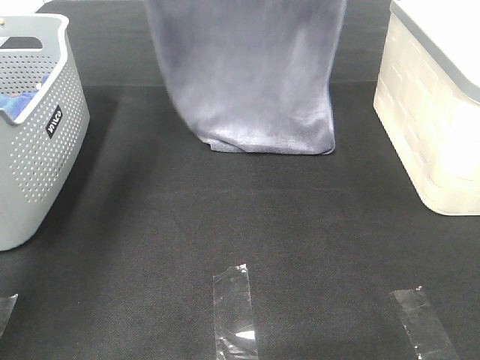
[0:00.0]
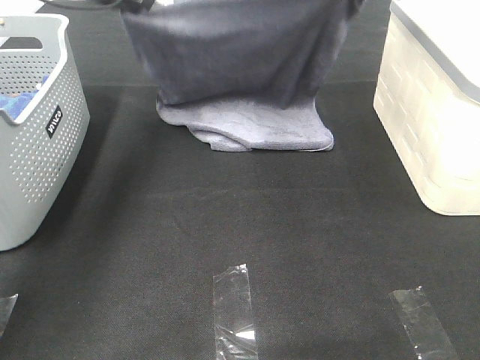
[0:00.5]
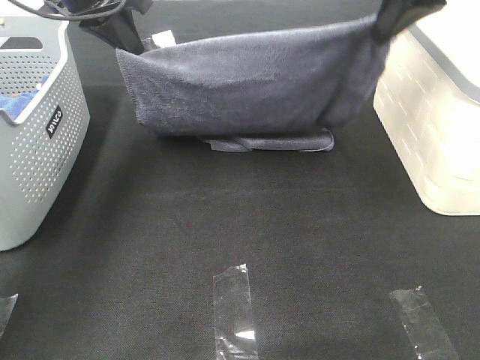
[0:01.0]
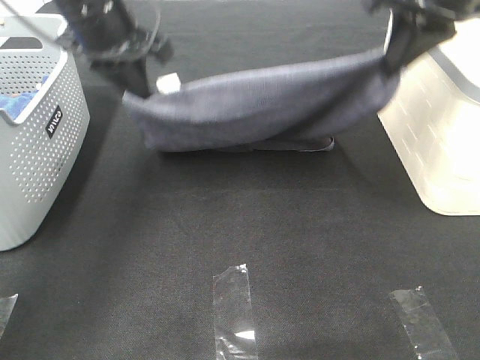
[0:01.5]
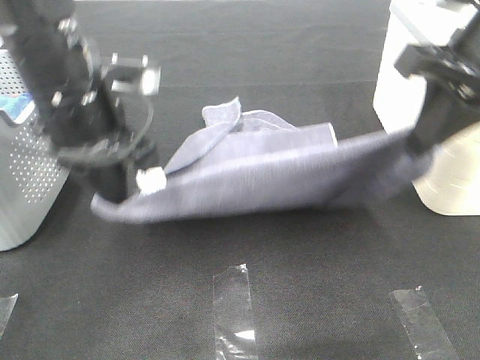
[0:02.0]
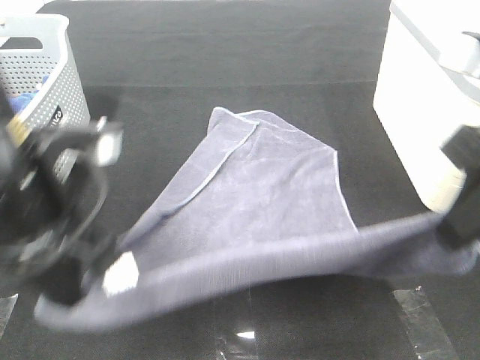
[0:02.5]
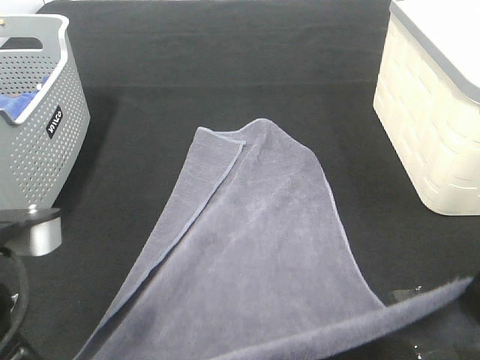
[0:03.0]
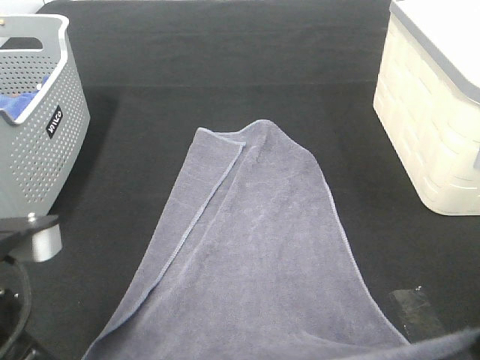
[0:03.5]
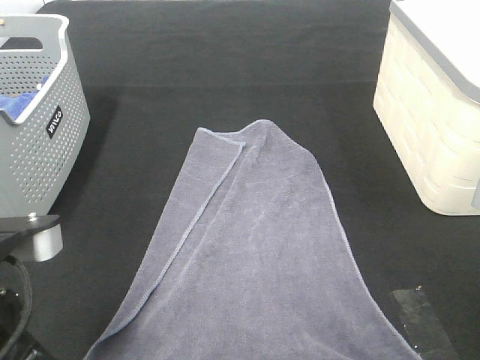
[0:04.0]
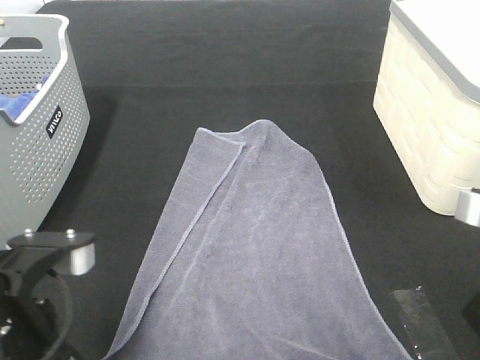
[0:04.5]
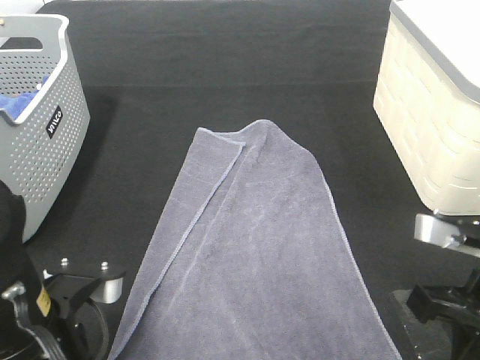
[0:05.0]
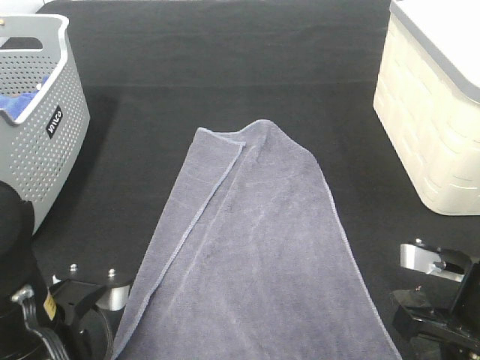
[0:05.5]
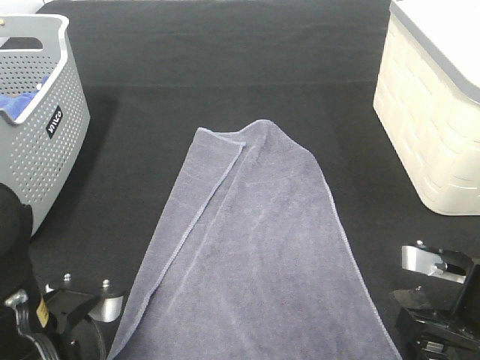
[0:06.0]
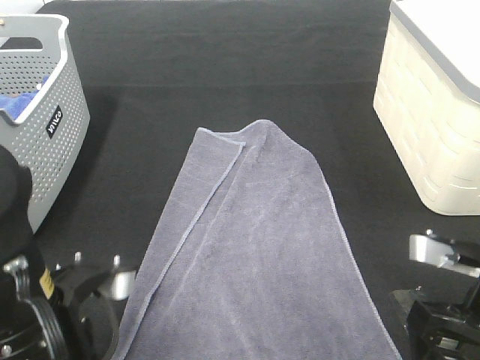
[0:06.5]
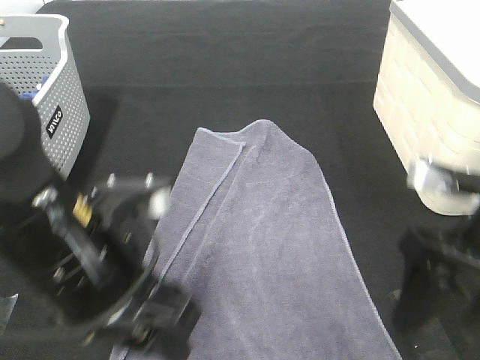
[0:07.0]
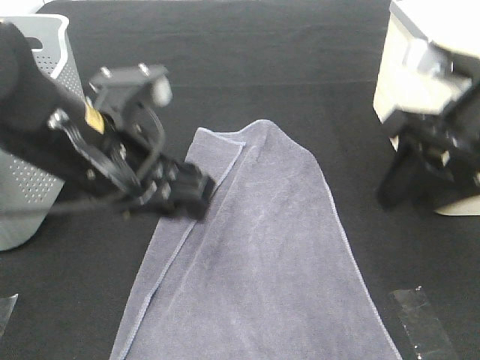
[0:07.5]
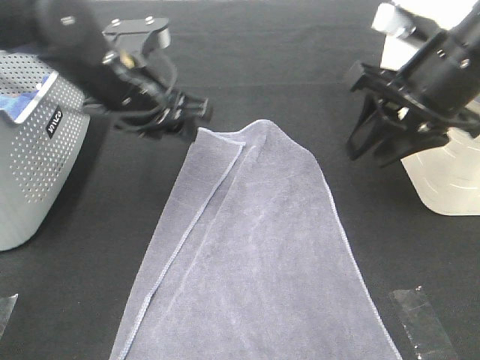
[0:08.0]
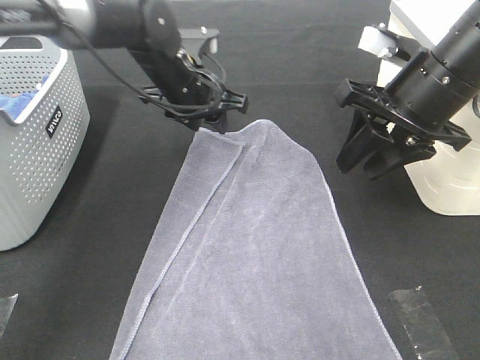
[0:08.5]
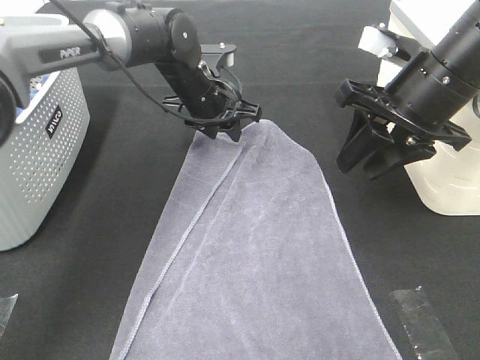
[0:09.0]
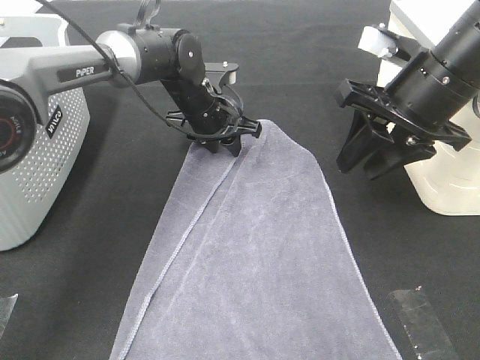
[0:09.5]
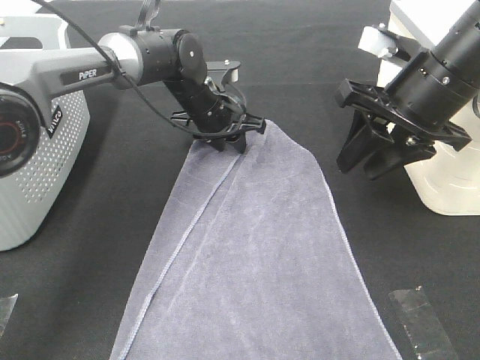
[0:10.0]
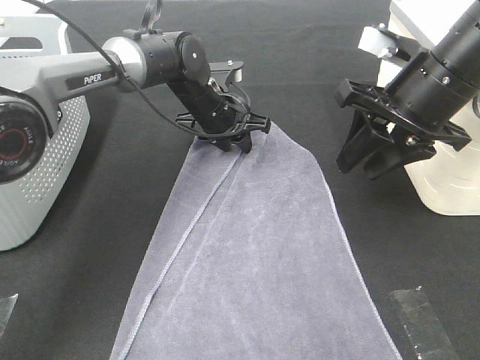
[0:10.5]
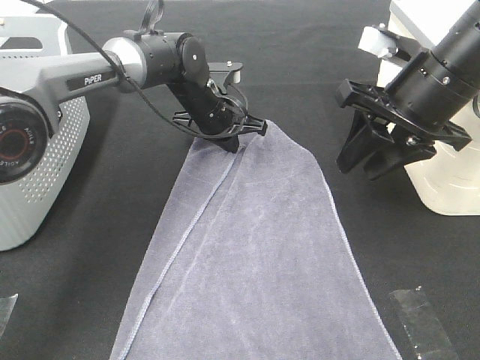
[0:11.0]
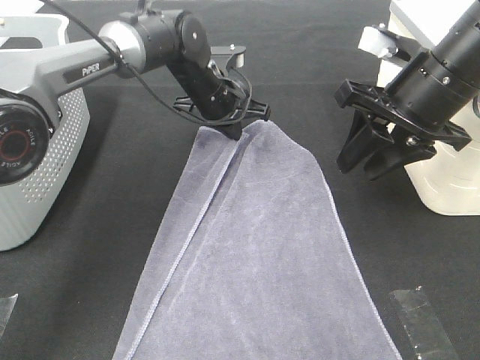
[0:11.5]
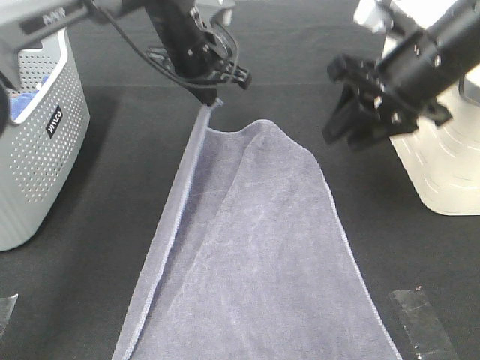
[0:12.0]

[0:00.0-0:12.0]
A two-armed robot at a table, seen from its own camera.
Task of the whole recording: Remove the towel and place it.
0:00.0 to 0:02.0: The right gripper goes roughly 20 cm backward, while the left gripper is displaced backward and downward by about 25 cm.
0:02.0 to 0:04.0: The right gripper goes roughly 15 cm backward and downward; the left gripper moves backward, some 20 cm.
0:04.0 to 0:06.0: The two grippers go roughly 10 cm downward. The right gripper opens; the left gripper opens.
0:06.0 to 0:08.0: The left gripper shifts some 25 cm forward. The right gripper heads forward and upward, covering some 20 cm, and closes.
0:08.0 to 0:10.0: The left gripper travels forward, downward and to the right by about 15 cm.
0:10.0 to 0:12.0: The left gripper travels upward by approximately 10 cm, and closes up.

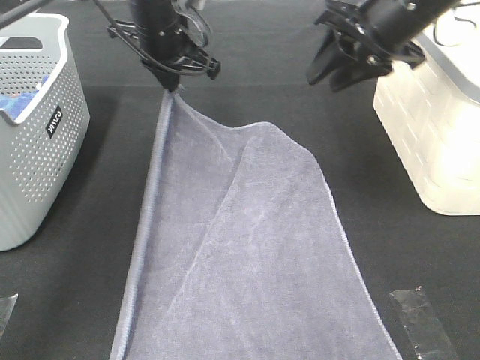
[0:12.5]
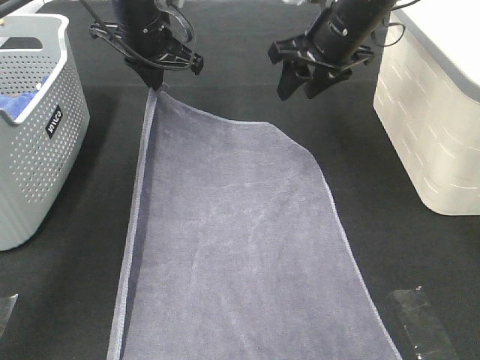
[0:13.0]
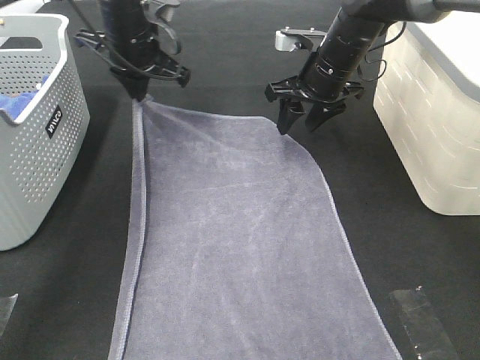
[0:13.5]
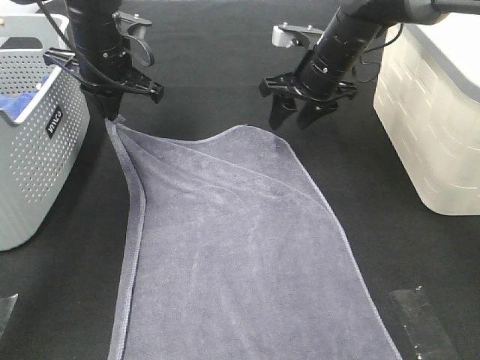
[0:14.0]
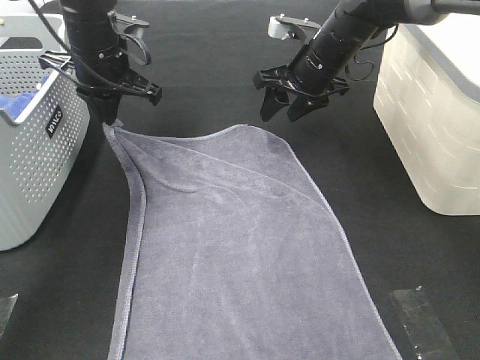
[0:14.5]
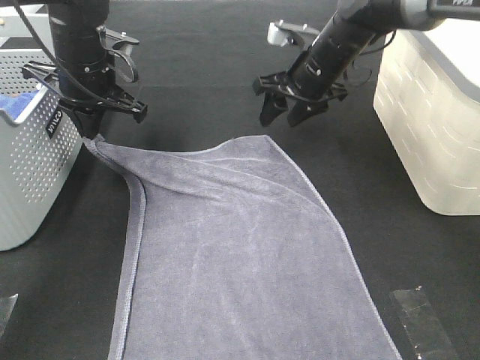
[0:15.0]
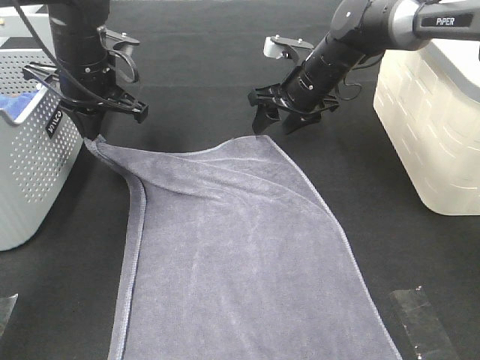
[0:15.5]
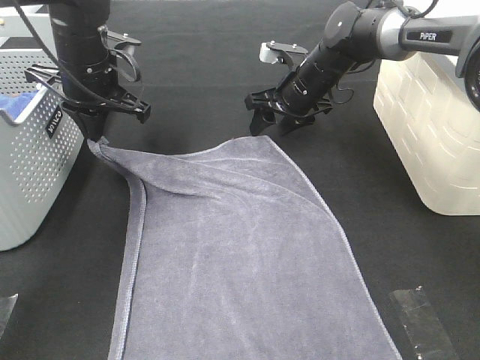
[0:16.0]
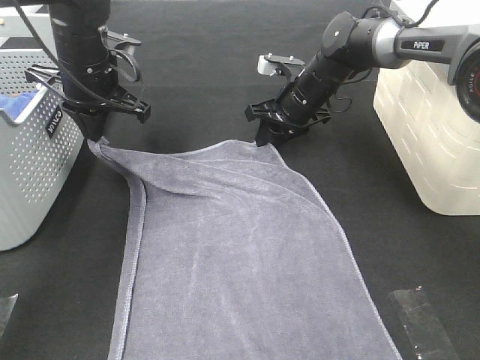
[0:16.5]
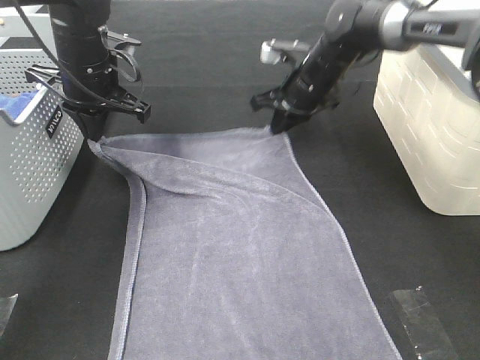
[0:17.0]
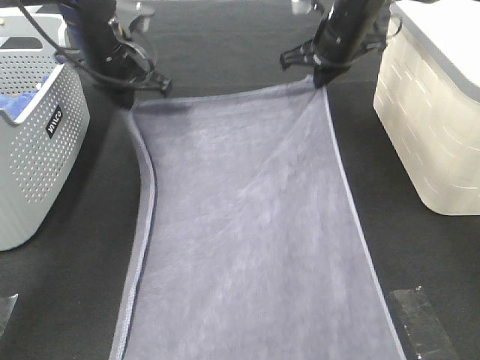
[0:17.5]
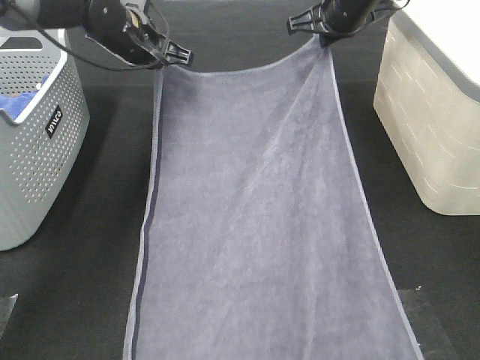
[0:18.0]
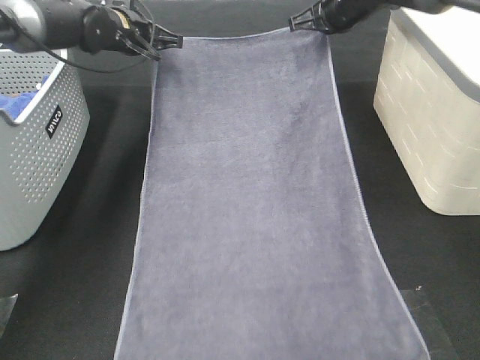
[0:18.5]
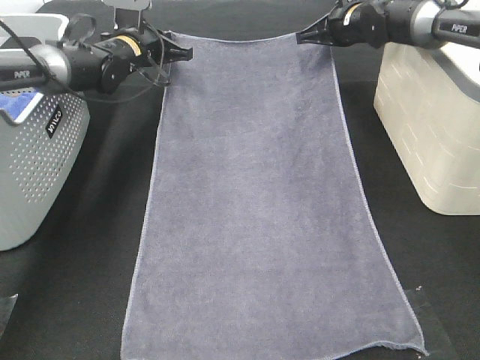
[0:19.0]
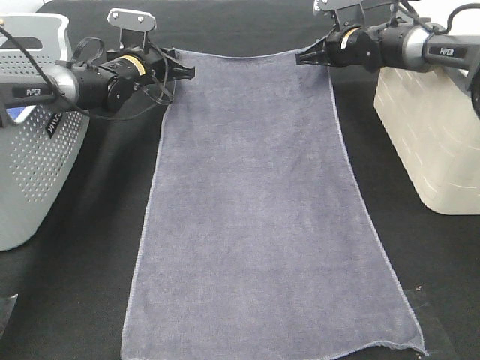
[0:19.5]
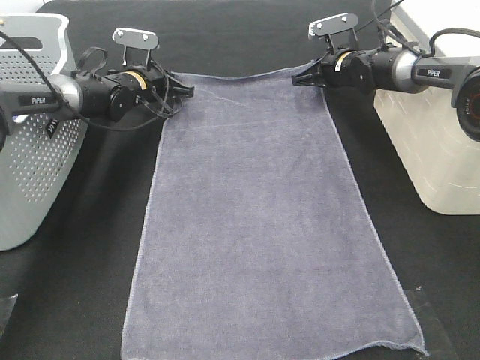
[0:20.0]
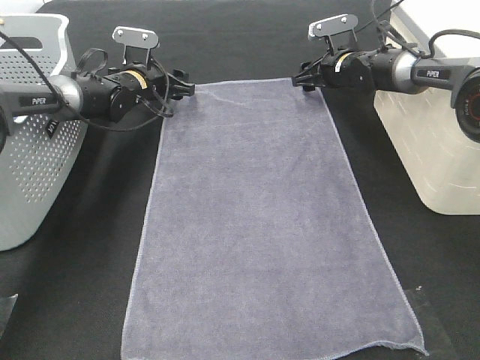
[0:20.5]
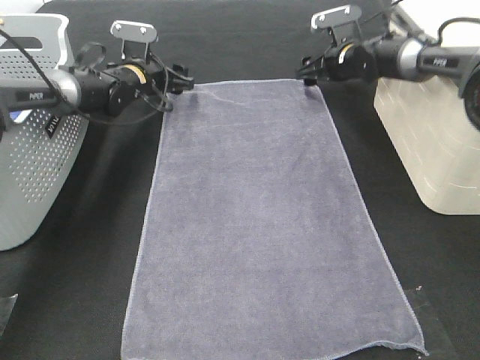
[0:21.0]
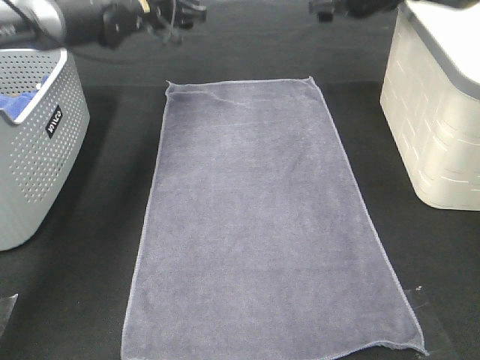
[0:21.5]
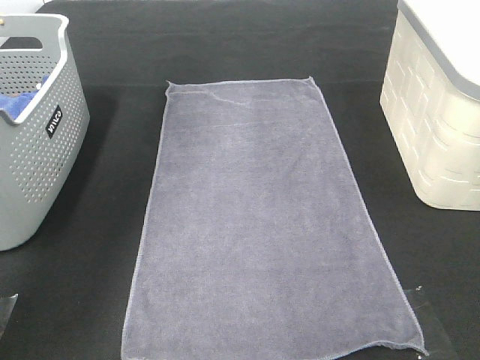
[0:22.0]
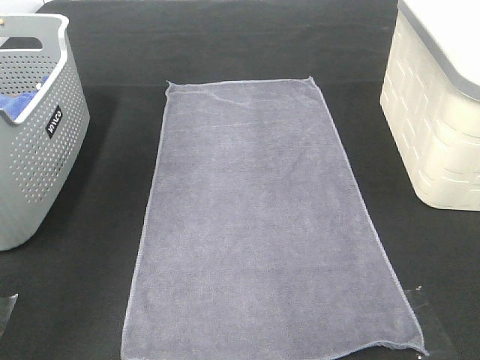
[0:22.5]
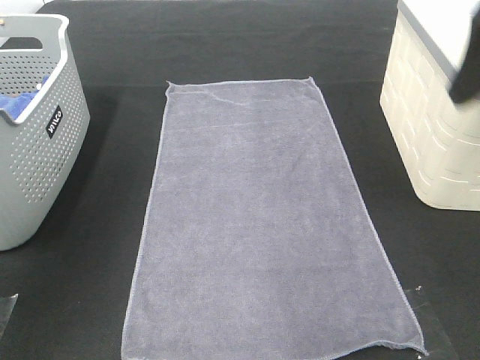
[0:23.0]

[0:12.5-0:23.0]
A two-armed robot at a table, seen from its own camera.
Task of the whole recording: Remove the towel and place it.
0:12.5 to 0:14.5: The left gripper goes approximately 5 cm to the left. The right gripper travels downward, forward and to the left by some 15 cm.
0:14.5 to 0:16.5: The right gripper is displaced downward by about 5 cm.
0:16.5 to 0:19.0: The left gripper travels forward and downward by some 15 cm; the right gripper moves forward, to the right and upward, roughly 15 cm, and closes its fingers.
0:19.0 to 0:21.0: The left gripper opens up. The right gripper goes some 5 cm downward, and opens up.
0:21.0 to 0:23.0: Both grippers travel together backward and upward, about 40 cm.

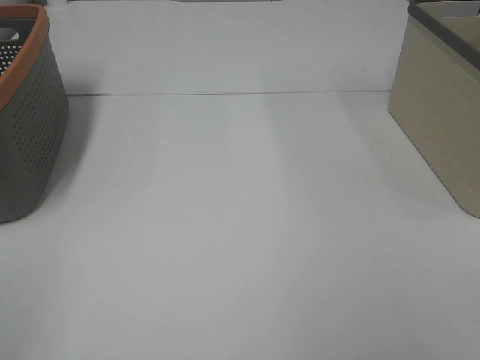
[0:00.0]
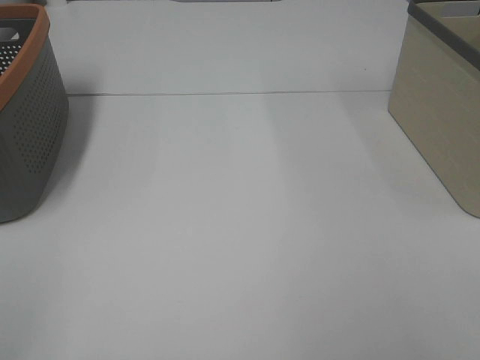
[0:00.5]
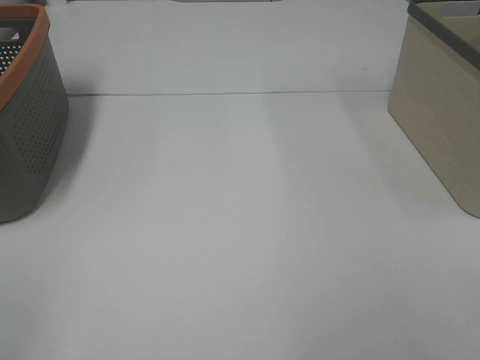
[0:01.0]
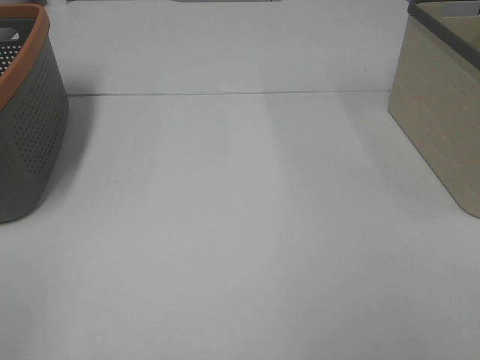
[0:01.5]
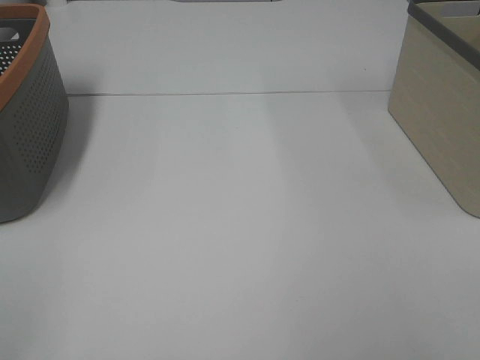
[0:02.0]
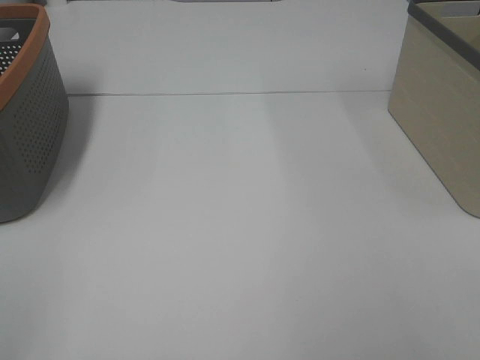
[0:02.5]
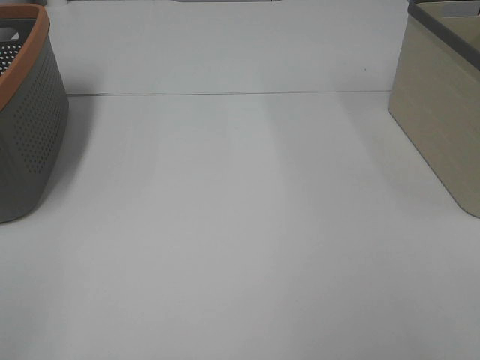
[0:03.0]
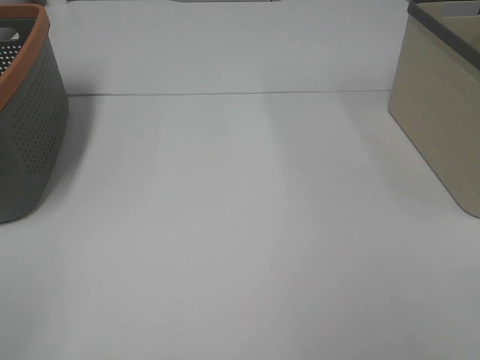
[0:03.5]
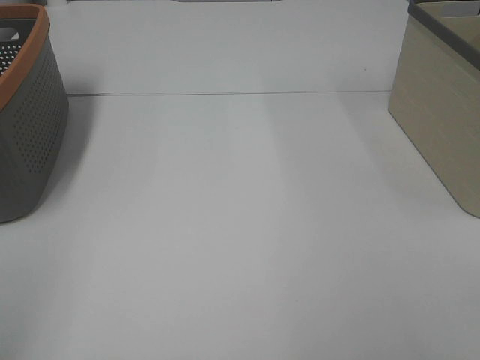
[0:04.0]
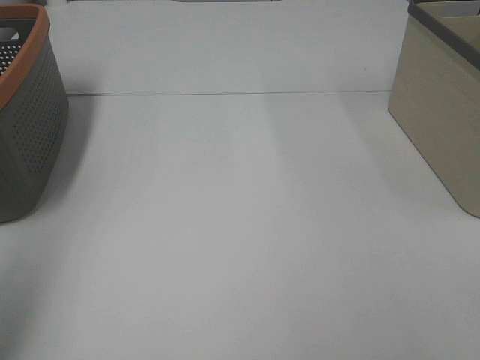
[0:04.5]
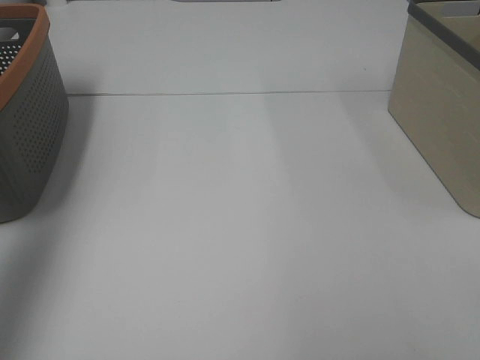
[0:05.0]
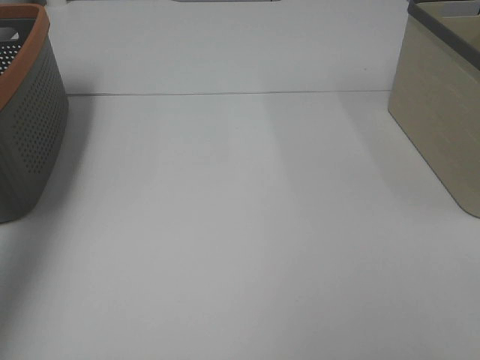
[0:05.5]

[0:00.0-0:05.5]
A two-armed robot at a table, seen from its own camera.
Task of the whole recording: Remove the towel and place it.
0:00.0 to 0:03.5: Both grippers stay about where they are.
0:03.5 to 0:05.5: The left gripper travels forward by roughly 35 cm.
